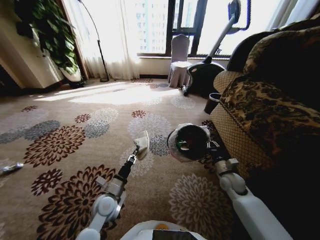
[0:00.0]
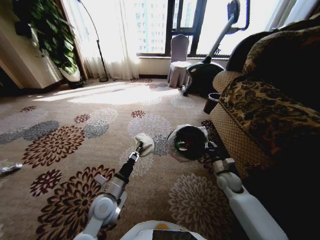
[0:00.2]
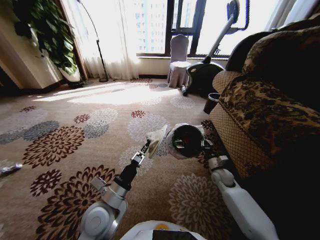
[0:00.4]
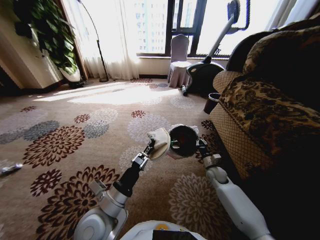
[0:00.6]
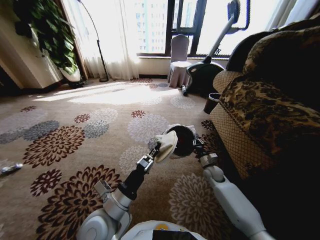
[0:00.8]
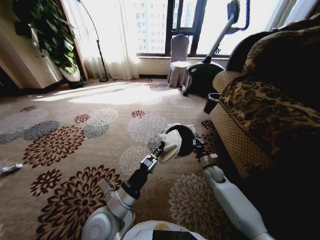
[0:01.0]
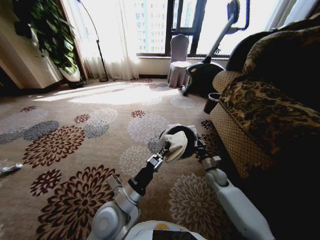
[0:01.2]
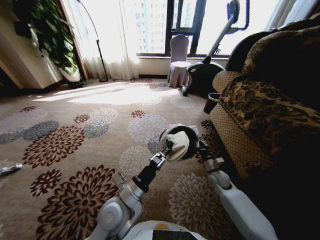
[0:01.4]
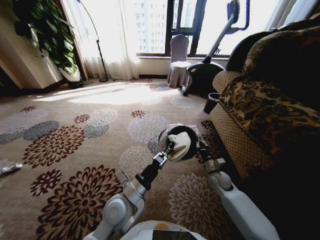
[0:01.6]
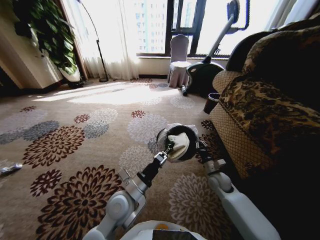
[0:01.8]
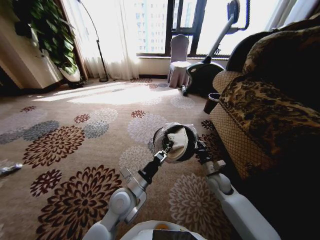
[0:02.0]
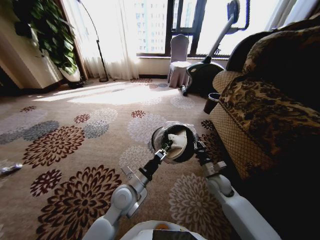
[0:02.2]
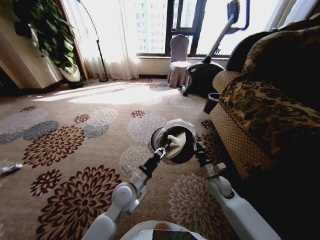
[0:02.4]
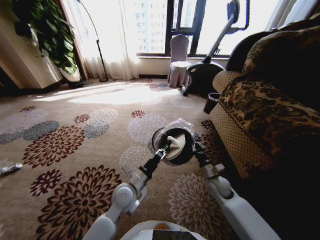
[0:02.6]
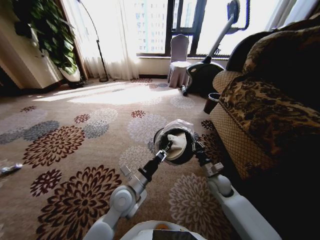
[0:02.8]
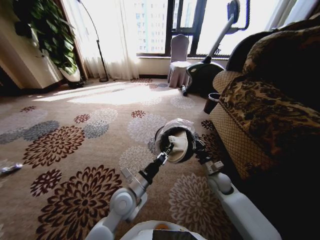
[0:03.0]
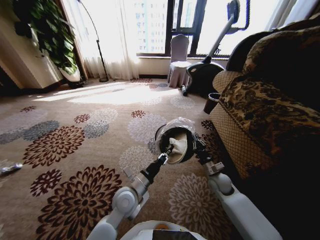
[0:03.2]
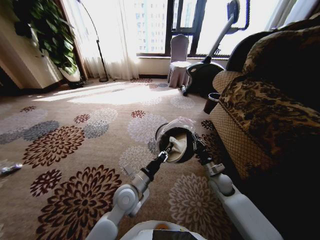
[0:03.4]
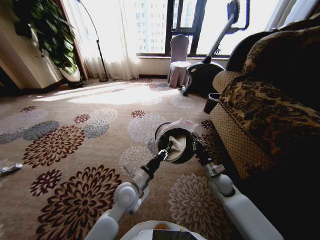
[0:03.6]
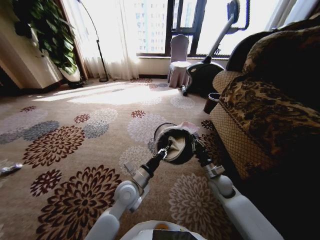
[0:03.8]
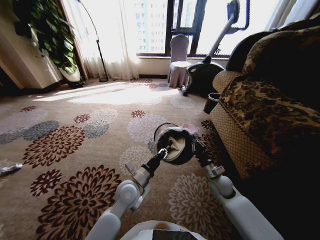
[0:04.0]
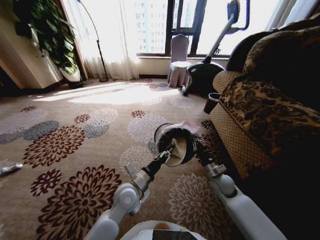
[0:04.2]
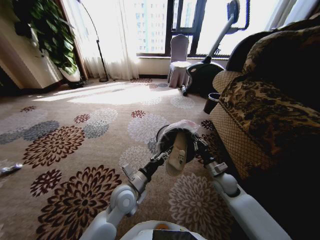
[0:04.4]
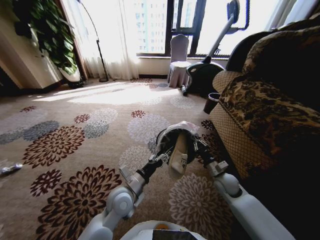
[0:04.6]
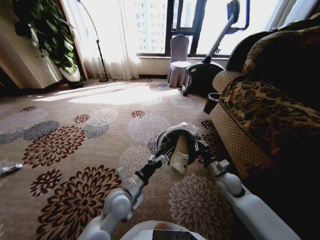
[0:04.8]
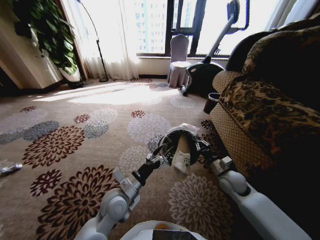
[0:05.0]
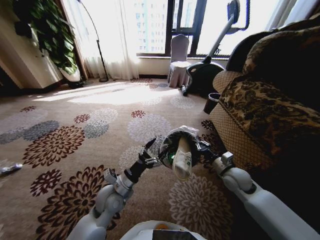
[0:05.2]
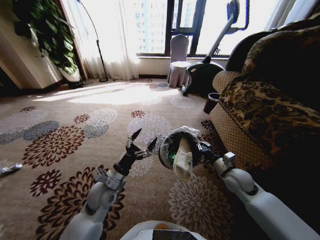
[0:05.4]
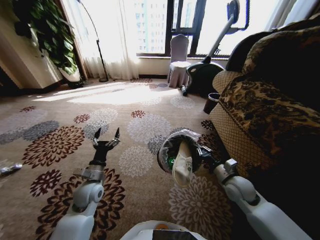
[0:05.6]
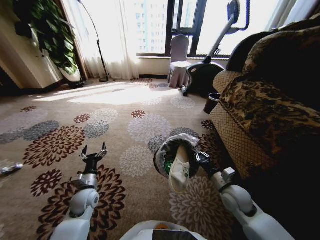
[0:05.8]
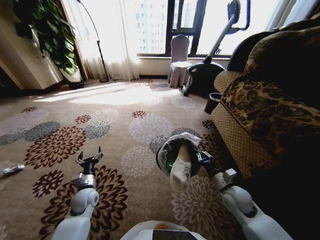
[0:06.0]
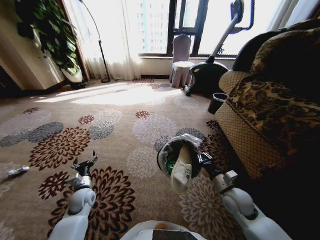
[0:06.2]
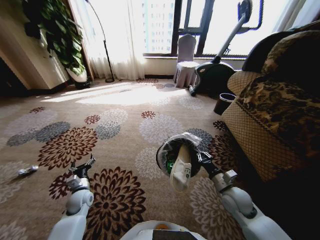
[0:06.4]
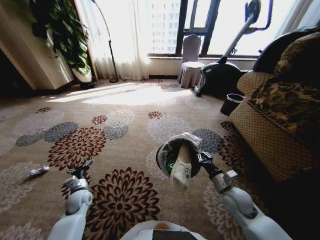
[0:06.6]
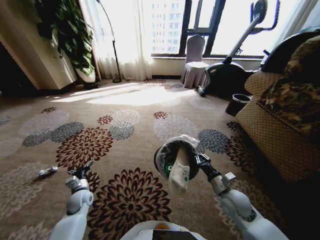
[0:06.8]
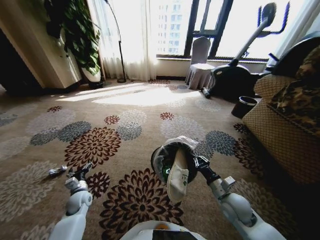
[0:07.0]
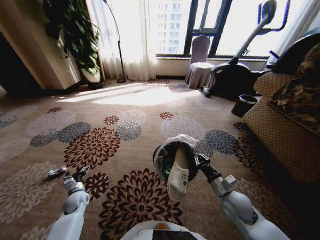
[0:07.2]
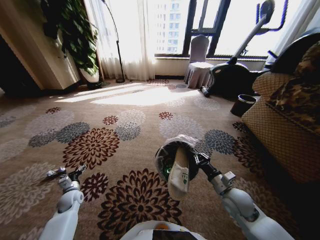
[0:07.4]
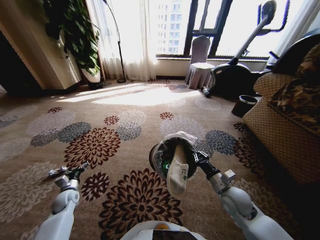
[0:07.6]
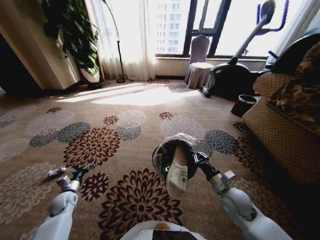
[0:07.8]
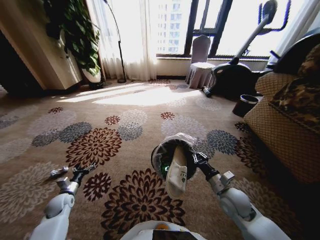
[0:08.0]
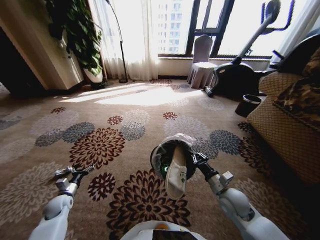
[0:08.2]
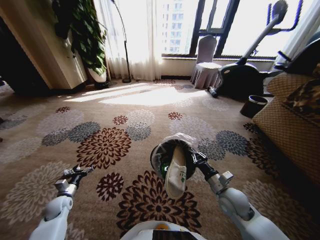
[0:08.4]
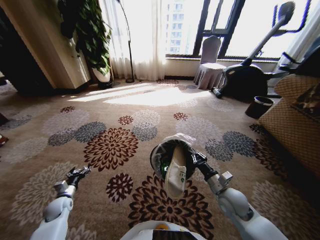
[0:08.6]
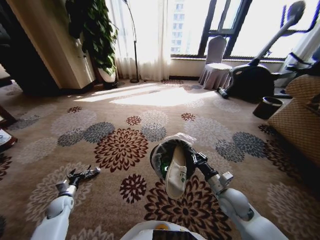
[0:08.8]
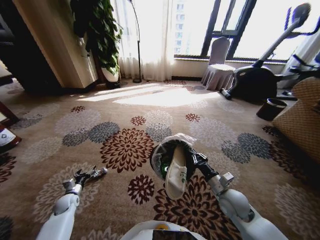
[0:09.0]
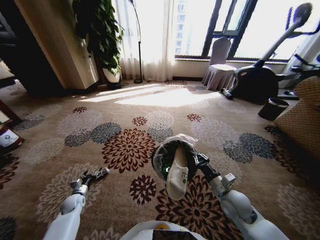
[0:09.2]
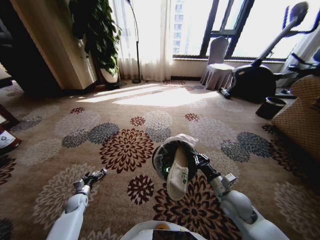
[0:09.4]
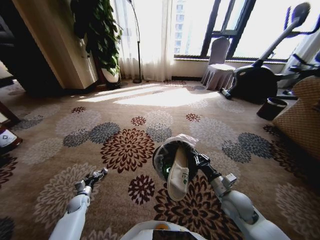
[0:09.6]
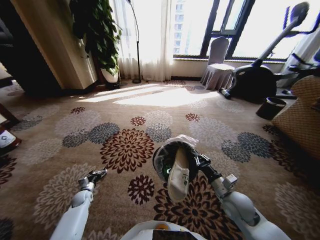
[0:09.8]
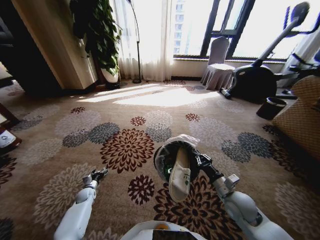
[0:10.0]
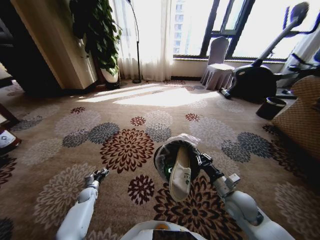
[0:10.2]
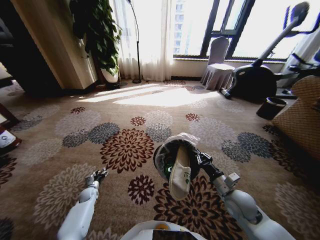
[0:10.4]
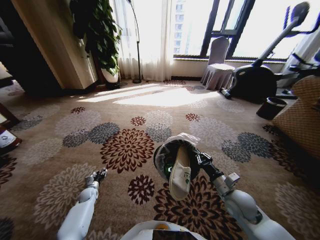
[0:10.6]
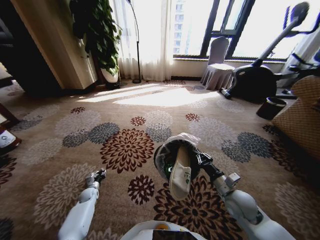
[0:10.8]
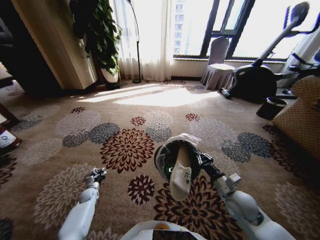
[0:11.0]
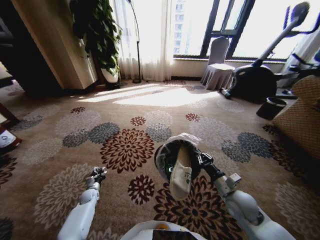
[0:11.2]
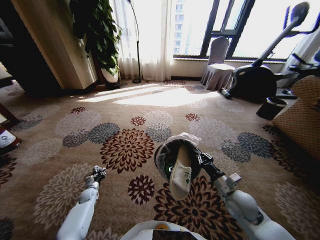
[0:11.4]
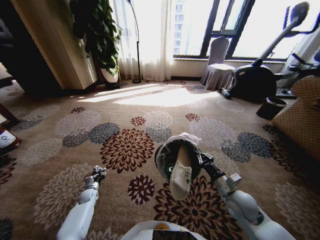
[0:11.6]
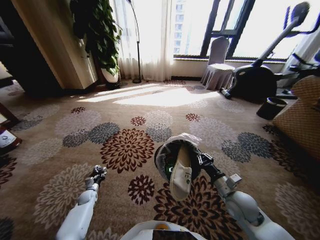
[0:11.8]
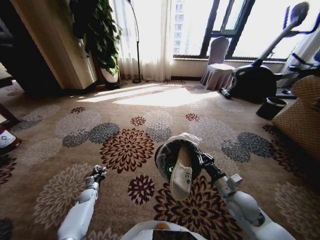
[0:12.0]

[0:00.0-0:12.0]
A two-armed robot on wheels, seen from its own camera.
Task of the whole recording: Pick up the trash from the ground and place it into the trash bin.
0:00.0 to 0:01.6: The left gripper heads upward and to the right, covering roughly 15 cm.
0:03.0 to 0:04.4: The left gripper opens.
0:04.4 to 0:06.0: The right gripper heads backward, covering roughly 5 cm, while the left gripper is displaced to the left and downward by approximately 20 cm, and opens.
0:06.0 to 0:07.6: The left gripper shifts about 15 cm to the left and downward.
0:07.6 to 0:09.0: The left gripper moves downward, roughly 5 cm.
0:09.0 to 0:10.4: The left gripper goes approximately 10 cm downward, forward and to the right.
0:10.4 to 0:12.0: The left gripper closes.

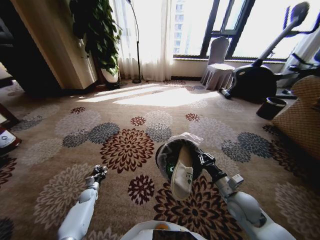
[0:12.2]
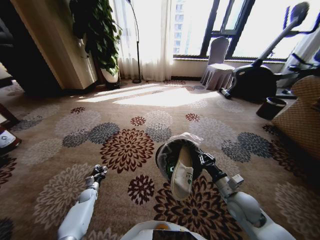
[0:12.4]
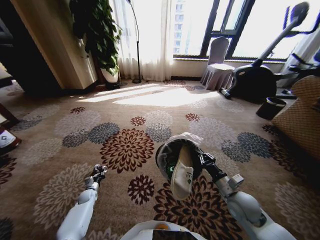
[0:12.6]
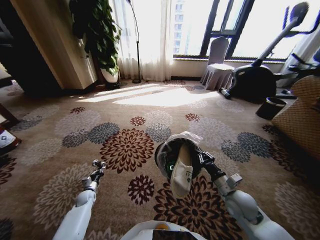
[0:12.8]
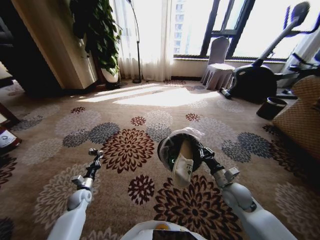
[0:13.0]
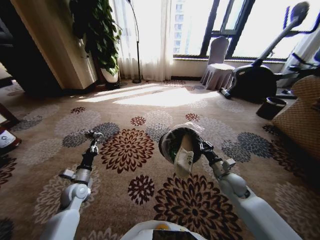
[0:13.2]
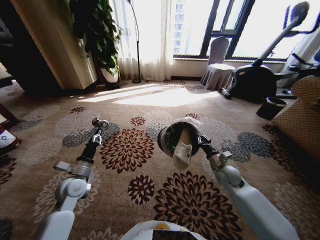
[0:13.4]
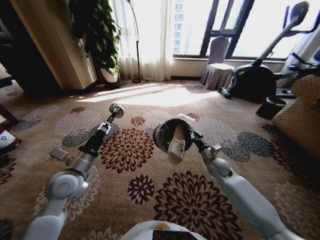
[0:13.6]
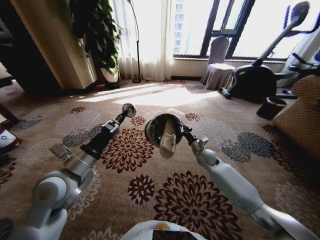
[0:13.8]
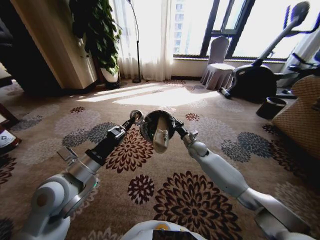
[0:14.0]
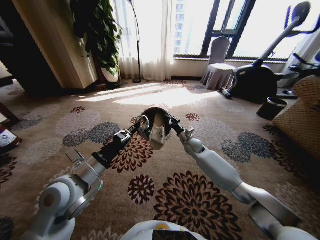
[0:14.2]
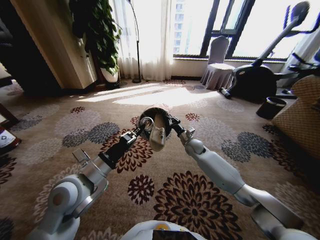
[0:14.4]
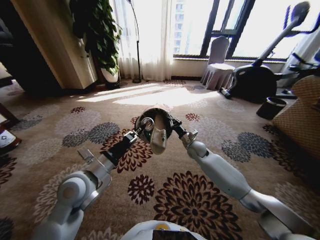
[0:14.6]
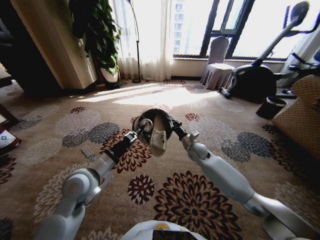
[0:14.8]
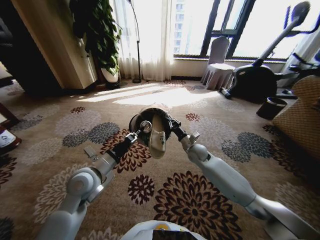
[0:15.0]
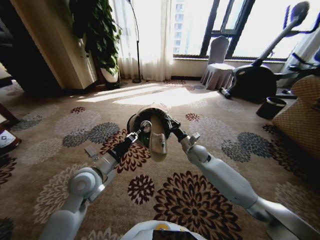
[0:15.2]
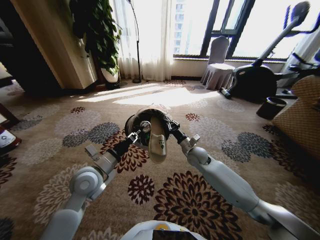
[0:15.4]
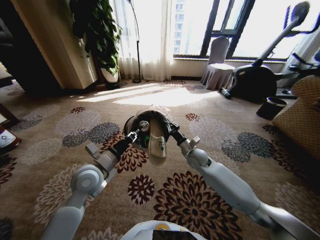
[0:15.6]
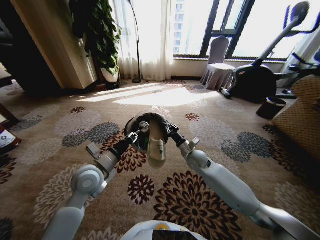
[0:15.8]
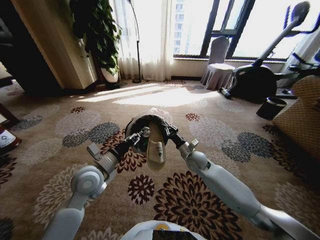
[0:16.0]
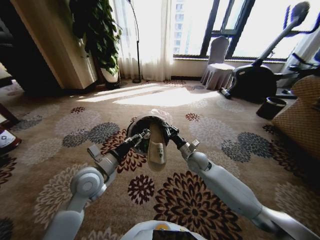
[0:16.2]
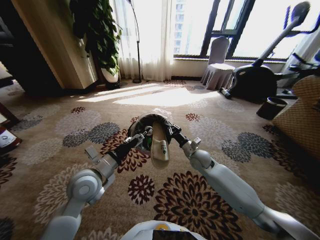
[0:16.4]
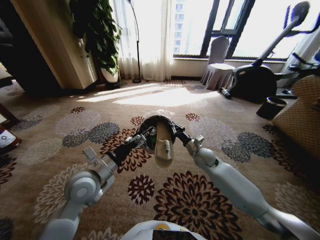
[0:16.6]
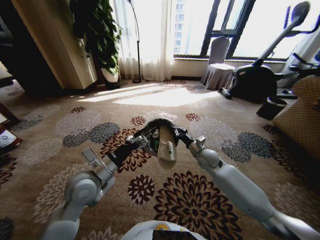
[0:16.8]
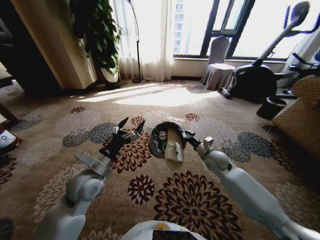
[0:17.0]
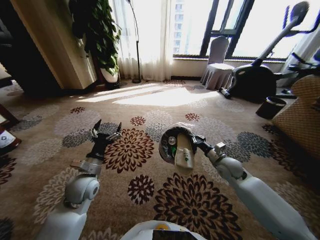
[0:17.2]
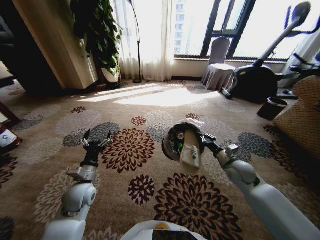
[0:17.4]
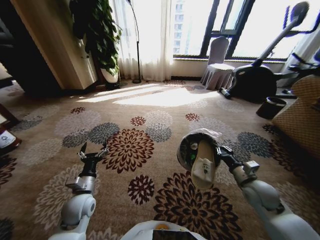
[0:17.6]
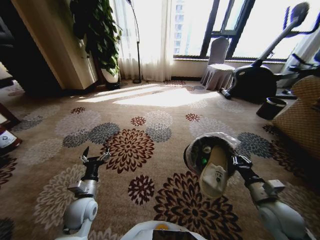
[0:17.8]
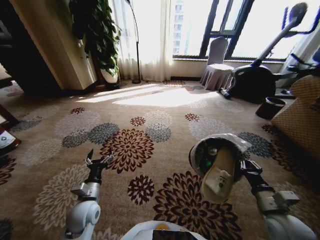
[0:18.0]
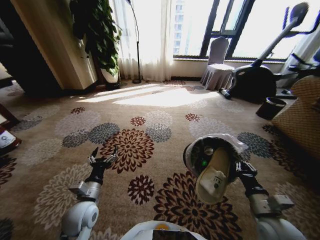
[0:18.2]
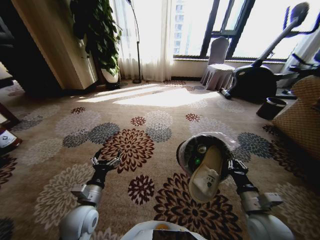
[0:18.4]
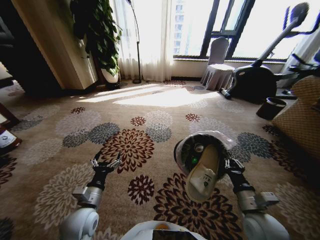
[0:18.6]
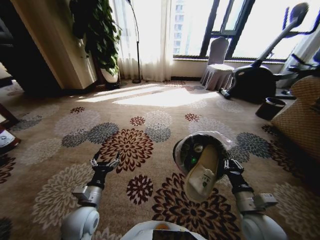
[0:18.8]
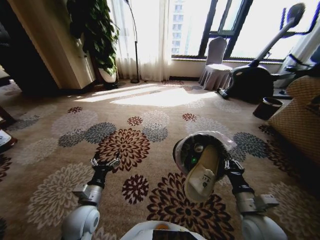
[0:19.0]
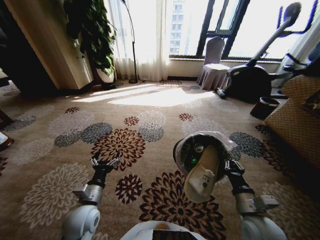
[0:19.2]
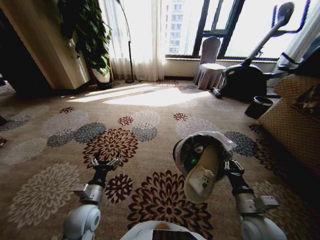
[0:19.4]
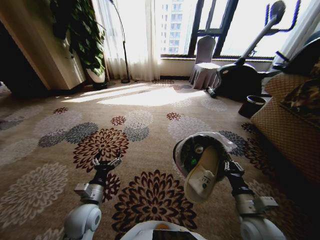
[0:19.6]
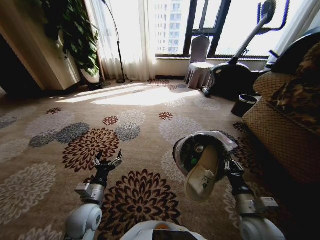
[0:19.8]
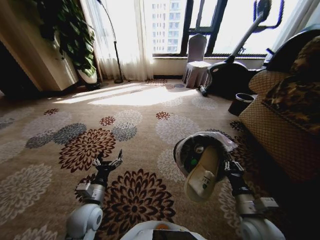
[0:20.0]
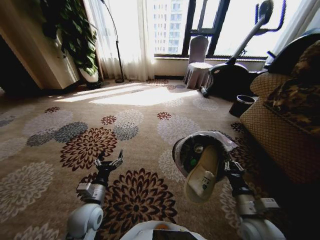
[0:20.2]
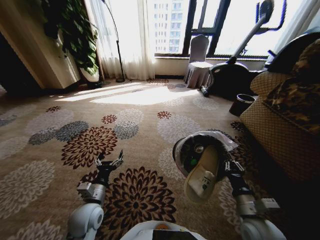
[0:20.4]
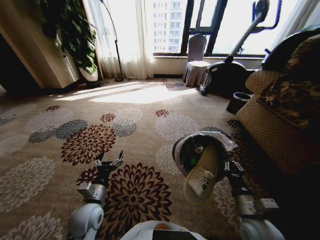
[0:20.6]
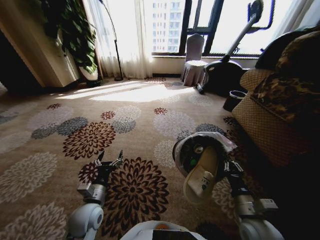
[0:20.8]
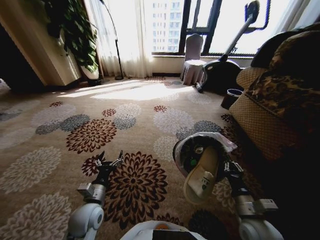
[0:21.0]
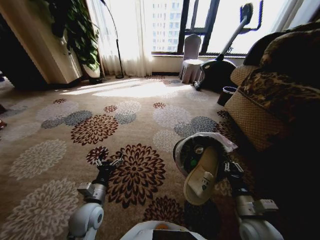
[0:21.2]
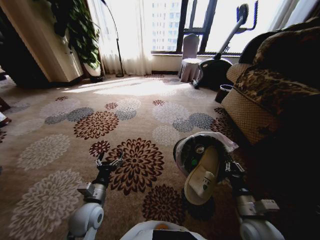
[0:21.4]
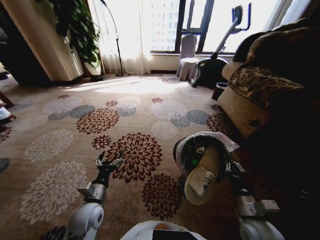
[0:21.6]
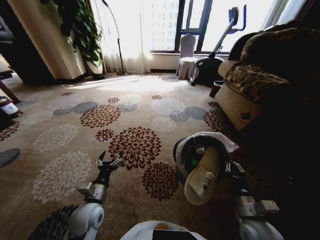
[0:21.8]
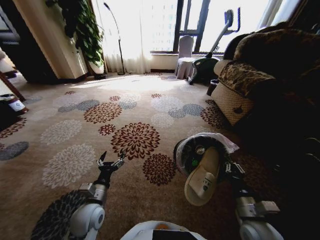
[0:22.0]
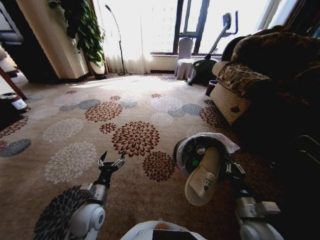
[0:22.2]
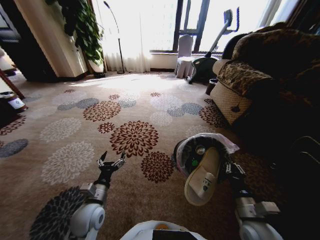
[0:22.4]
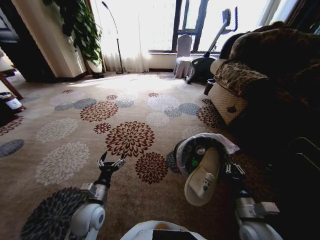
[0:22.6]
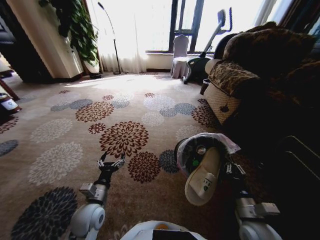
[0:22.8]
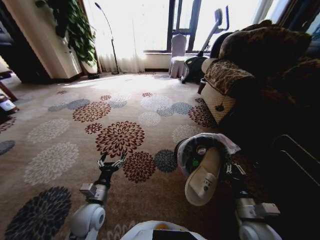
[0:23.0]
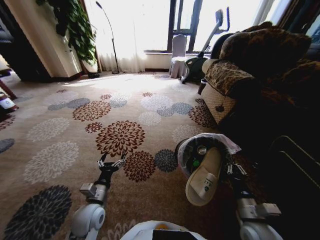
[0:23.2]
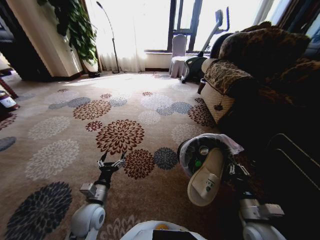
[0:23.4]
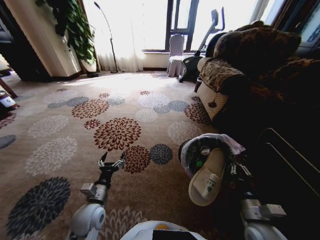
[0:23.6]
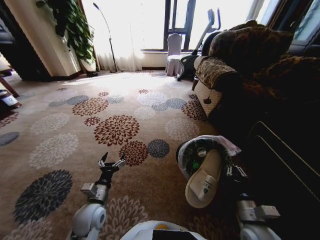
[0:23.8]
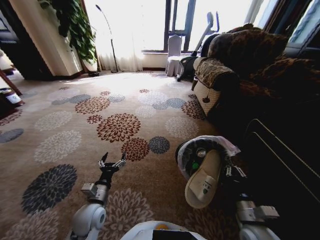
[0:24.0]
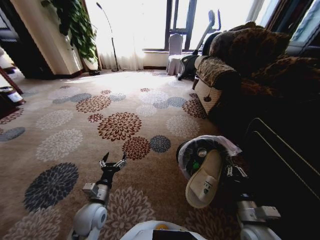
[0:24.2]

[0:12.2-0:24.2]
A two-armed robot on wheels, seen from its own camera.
Task of the whole recording: Pick up the trash from the ground and place it into the trash bin.
0:12.2 to 0:13.8: The left gripper shifts about 40 cm upward; the right gripper goes some 20 cm forward.
0:13.8 to 0:15.2: The right gripper moves to the left, about 5 cm; the left gripper moves downward, roughly 5 cm.
0:15.2 to 0:16.6: The left gripper opens up.
0:16.6 to 0:18.2: The right gripper heads backward and to the right, covering approximately 30 cm. The left gripper travels downward and backward by approximately 15 cm.
